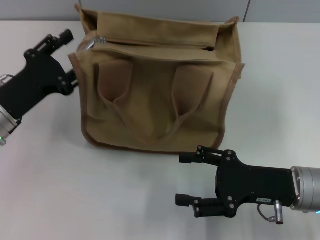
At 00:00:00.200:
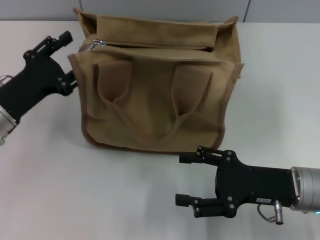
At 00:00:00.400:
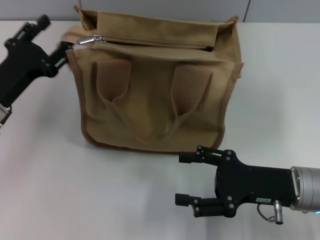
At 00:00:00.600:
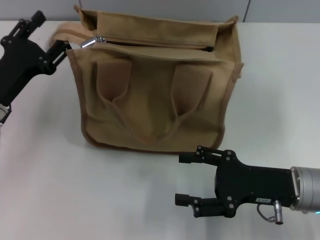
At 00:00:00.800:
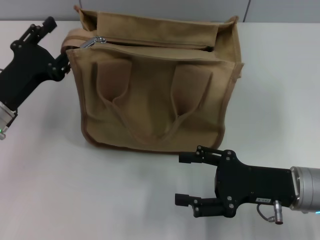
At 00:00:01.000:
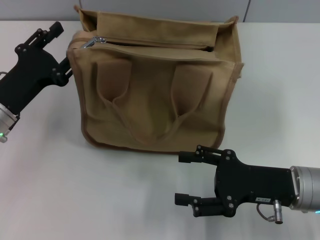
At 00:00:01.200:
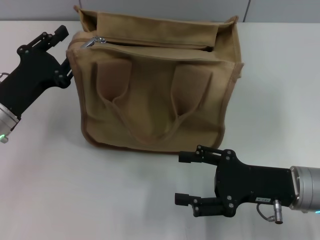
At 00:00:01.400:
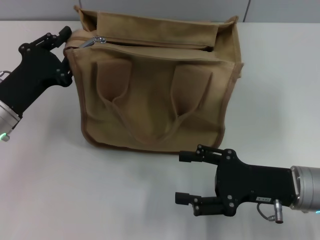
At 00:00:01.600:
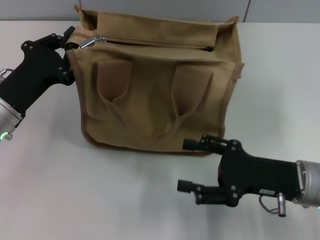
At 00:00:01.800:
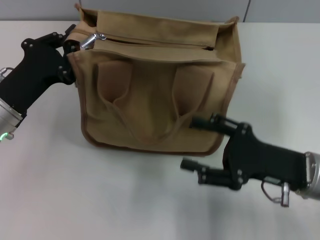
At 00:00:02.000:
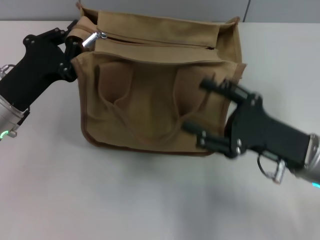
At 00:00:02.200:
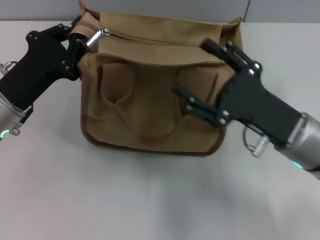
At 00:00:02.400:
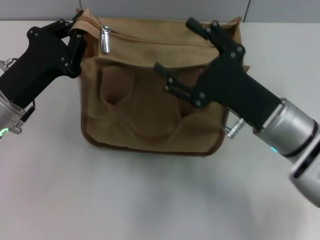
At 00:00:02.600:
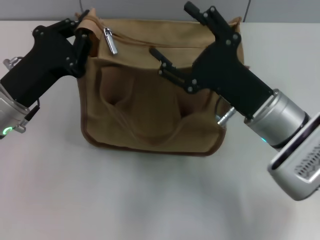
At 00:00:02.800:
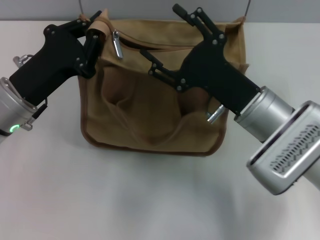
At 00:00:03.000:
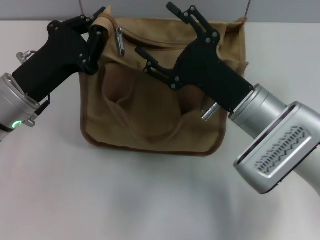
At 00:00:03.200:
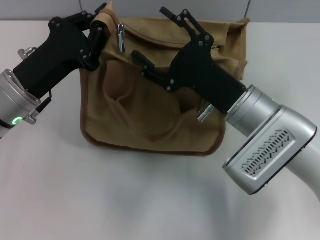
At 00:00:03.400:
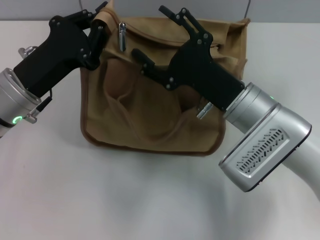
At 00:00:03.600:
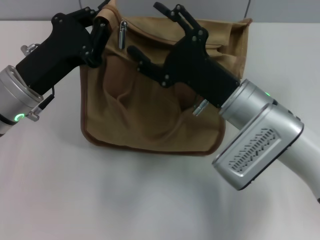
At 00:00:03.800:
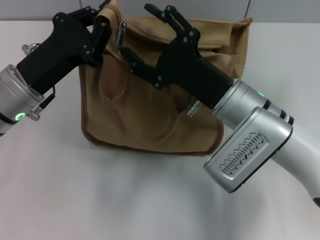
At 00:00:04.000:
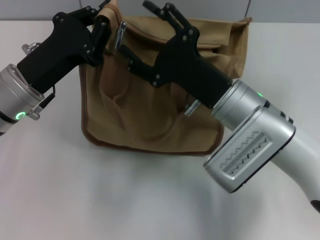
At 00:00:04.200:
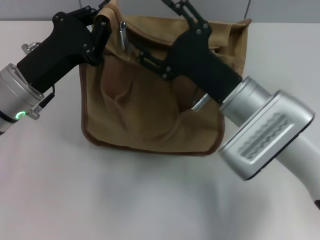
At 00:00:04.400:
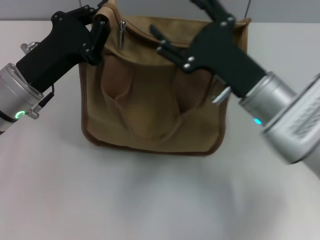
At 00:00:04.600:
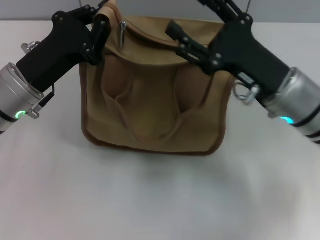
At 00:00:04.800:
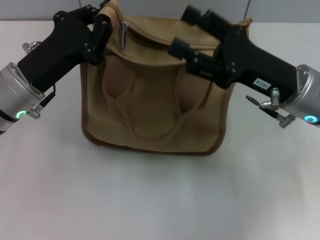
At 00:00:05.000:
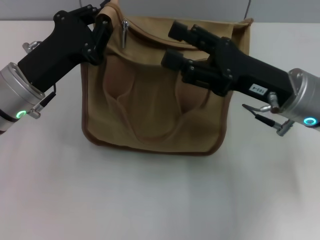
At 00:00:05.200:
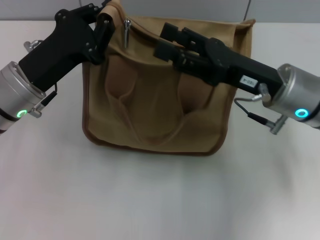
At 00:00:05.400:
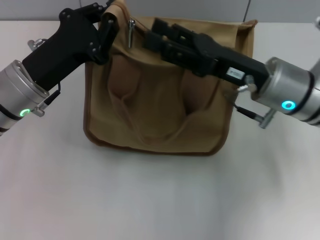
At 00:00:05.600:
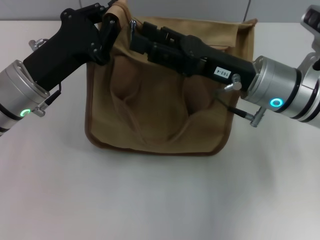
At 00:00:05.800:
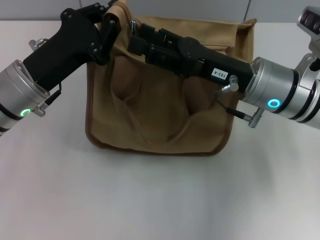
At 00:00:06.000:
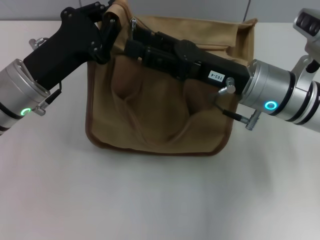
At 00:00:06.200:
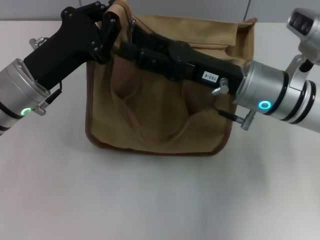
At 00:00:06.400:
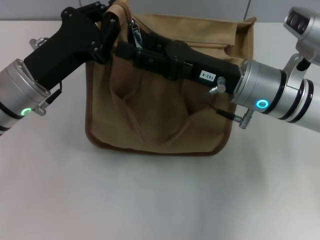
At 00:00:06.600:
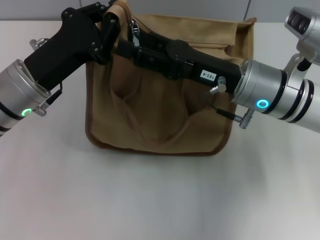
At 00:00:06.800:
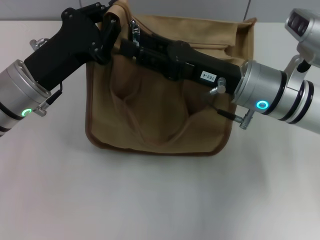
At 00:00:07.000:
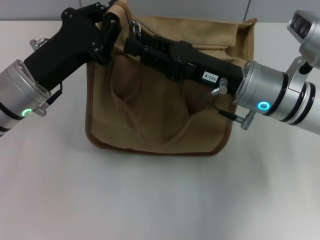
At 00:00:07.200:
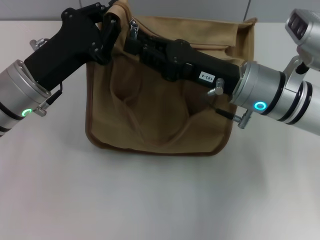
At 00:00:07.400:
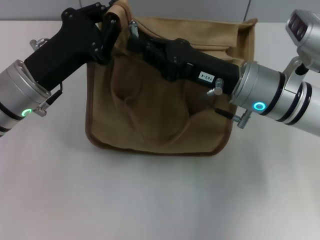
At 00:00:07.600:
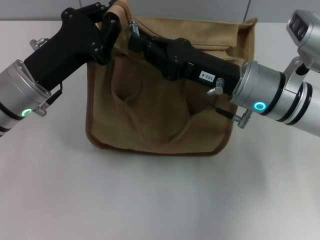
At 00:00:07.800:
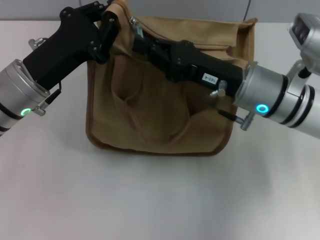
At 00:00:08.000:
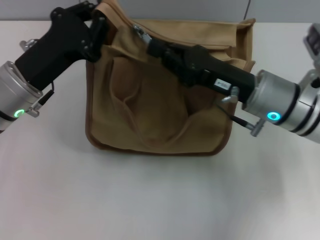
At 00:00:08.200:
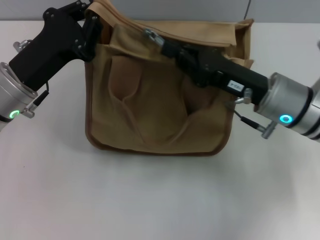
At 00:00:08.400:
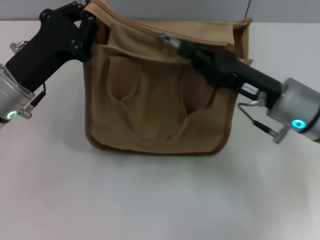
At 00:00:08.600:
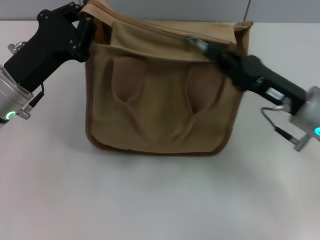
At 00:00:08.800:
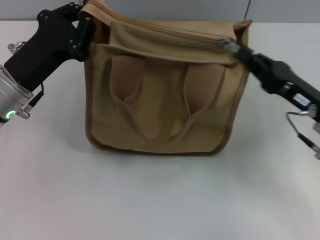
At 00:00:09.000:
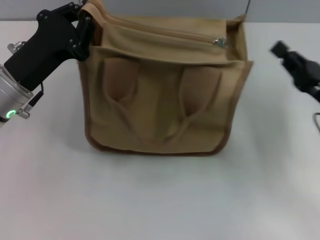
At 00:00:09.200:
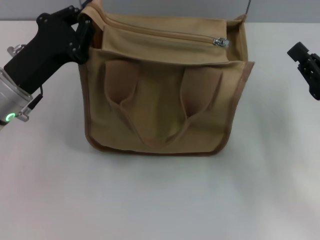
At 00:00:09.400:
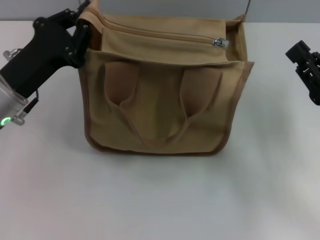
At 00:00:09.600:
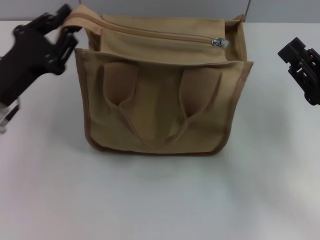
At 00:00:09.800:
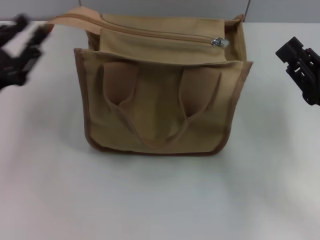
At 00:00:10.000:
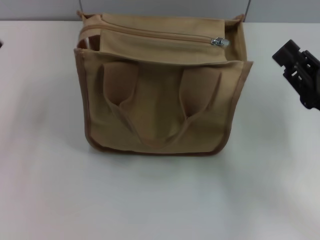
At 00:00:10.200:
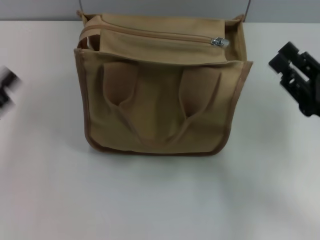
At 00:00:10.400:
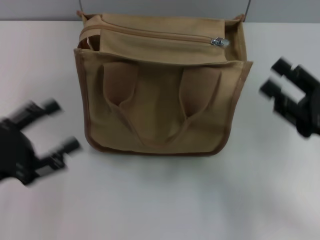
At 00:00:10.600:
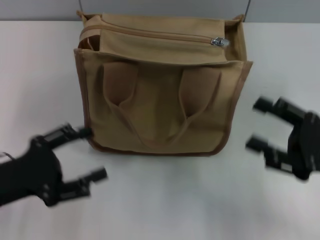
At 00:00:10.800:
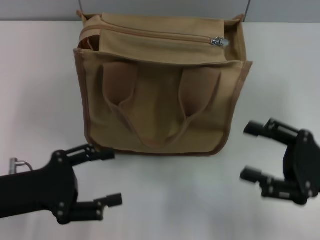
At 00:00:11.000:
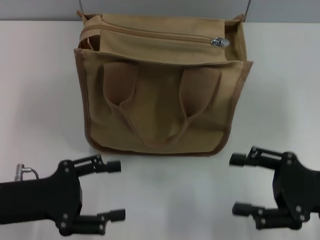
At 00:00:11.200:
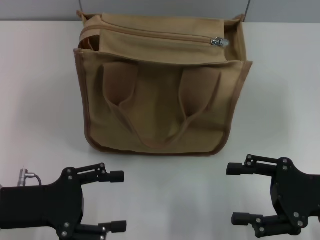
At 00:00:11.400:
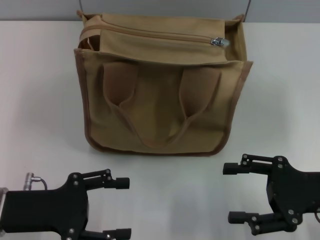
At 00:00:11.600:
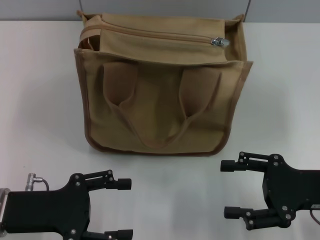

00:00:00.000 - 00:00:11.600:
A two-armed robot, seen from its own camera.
Step, 00:00:00.000 - 00:00:08.800: Pull up the zipper with your right hand.
Step, 00:00:09.000 - 00:00:09.800: Grab the zipper with your left hand.
00:00:00.000 - 00:00:01.400: The grippers move only a little.
00:00:01.400 - 00:00:02.800: The left gripper closes its fingers, while the right gripper is displaced to the left and forward by about 10 cm.
00:00:05.800 - 00:00:07.200: The right gripper closes.
00:00:07.200 - 00:00:08.800: The right gripper travels to the right by approximately 10 cm, and closes.
00:00:08.800 - 00:00:10.200: The left gripper shifts about 15 cm backward and to the left, and opens its fingers, while the right gripper opens.
00:00:10.200 - 00:00:11.600: The left gripper is displaced to the right by about 5 cm, while the right gripper opens up.

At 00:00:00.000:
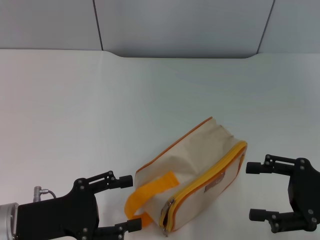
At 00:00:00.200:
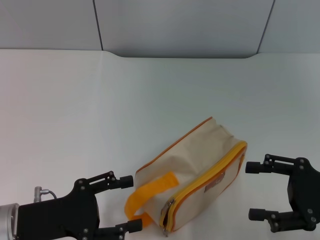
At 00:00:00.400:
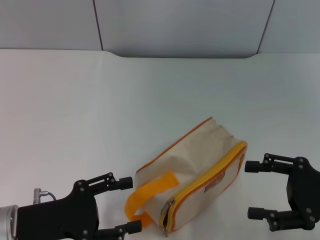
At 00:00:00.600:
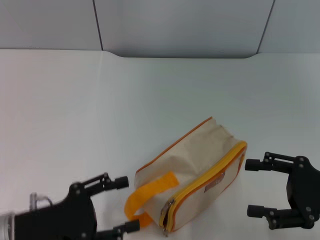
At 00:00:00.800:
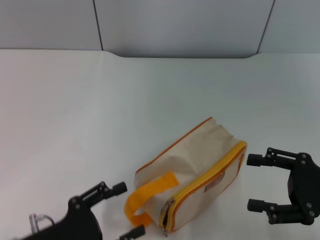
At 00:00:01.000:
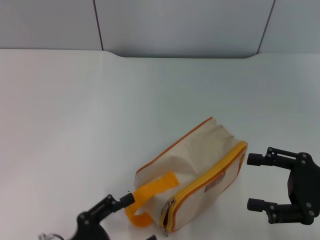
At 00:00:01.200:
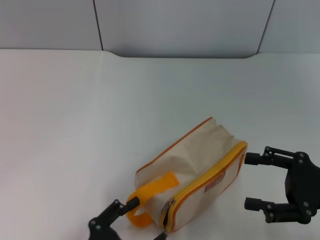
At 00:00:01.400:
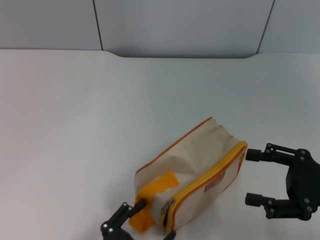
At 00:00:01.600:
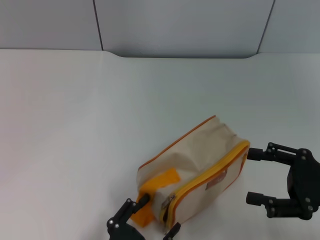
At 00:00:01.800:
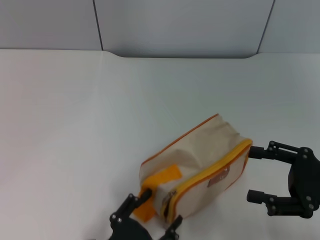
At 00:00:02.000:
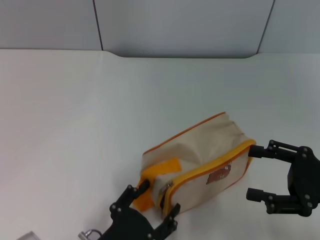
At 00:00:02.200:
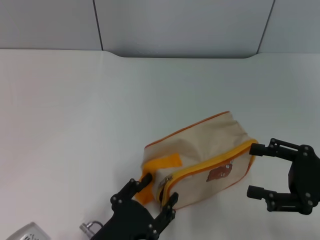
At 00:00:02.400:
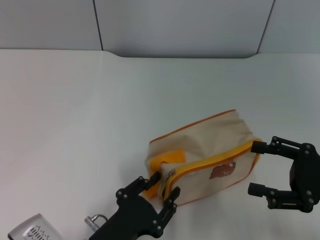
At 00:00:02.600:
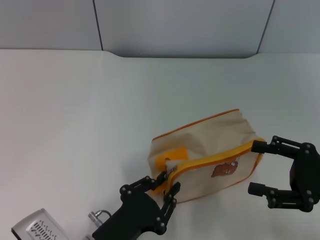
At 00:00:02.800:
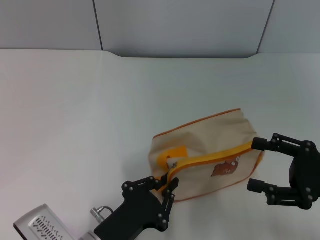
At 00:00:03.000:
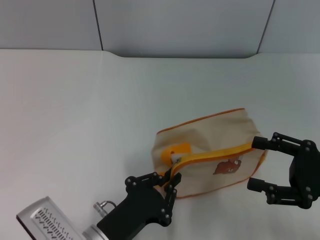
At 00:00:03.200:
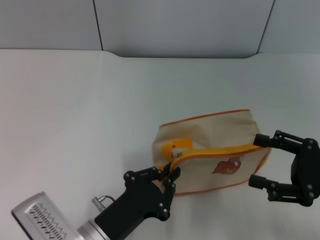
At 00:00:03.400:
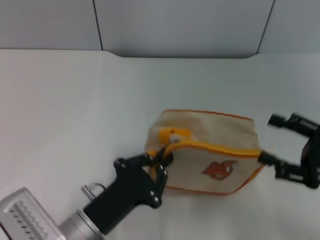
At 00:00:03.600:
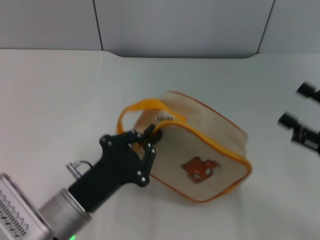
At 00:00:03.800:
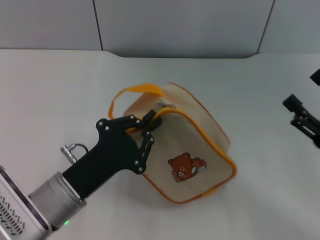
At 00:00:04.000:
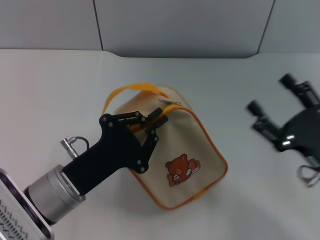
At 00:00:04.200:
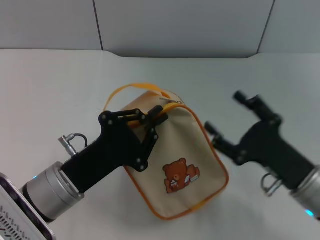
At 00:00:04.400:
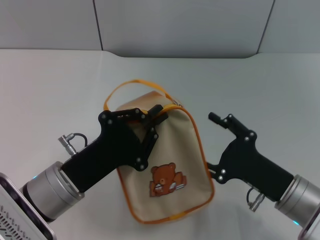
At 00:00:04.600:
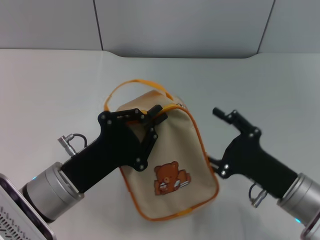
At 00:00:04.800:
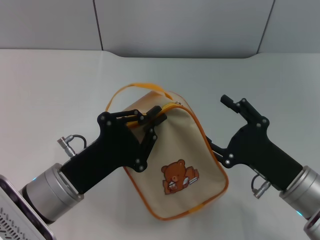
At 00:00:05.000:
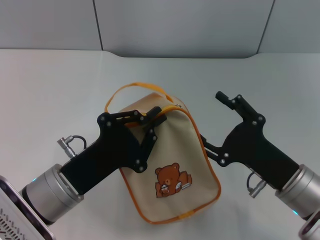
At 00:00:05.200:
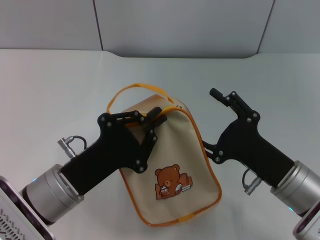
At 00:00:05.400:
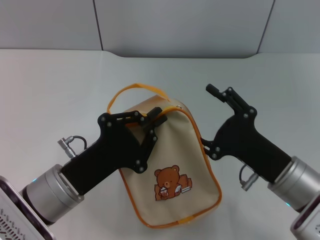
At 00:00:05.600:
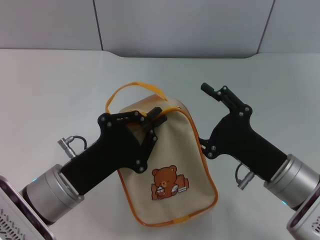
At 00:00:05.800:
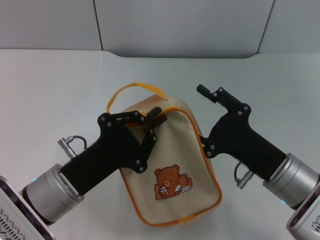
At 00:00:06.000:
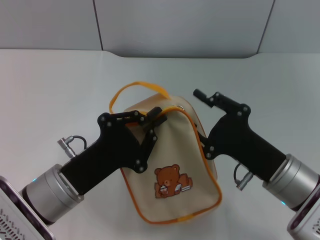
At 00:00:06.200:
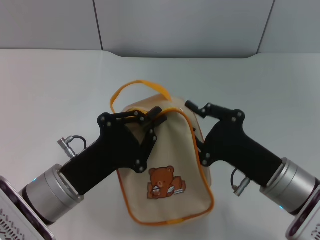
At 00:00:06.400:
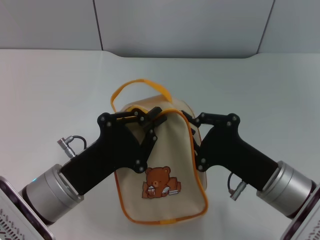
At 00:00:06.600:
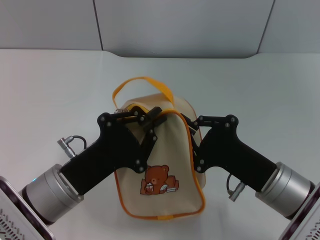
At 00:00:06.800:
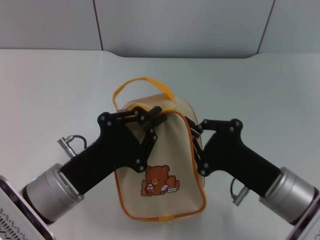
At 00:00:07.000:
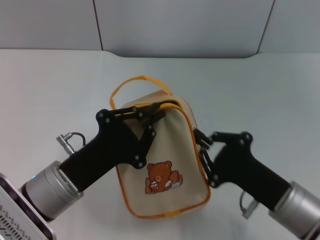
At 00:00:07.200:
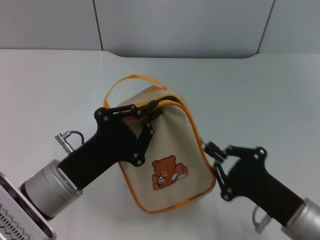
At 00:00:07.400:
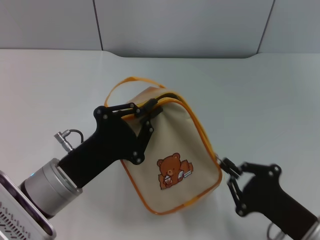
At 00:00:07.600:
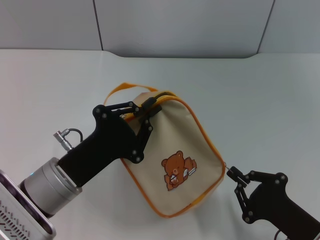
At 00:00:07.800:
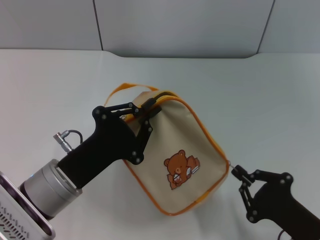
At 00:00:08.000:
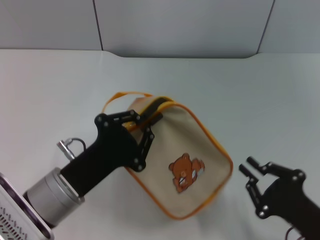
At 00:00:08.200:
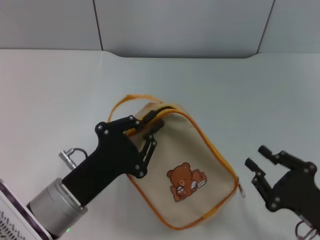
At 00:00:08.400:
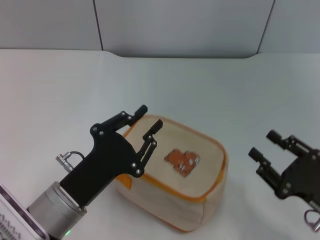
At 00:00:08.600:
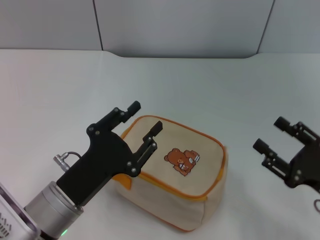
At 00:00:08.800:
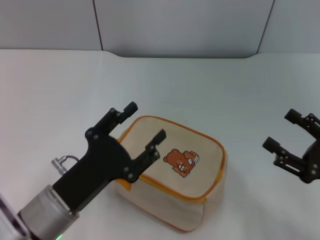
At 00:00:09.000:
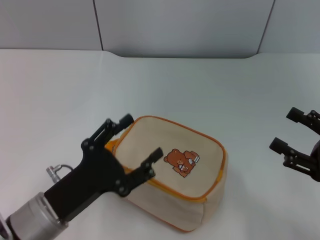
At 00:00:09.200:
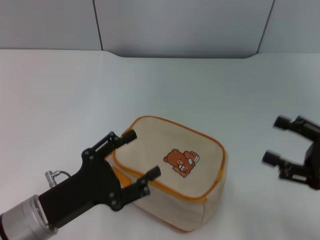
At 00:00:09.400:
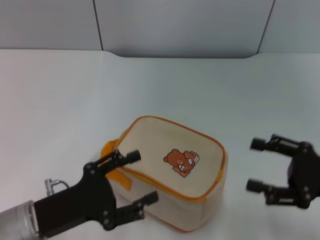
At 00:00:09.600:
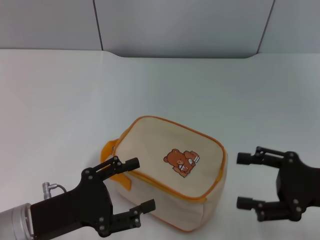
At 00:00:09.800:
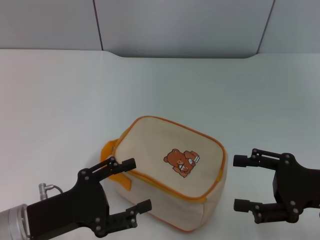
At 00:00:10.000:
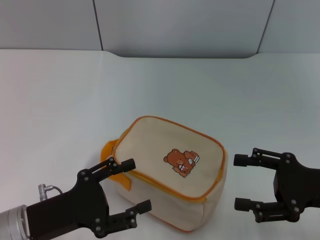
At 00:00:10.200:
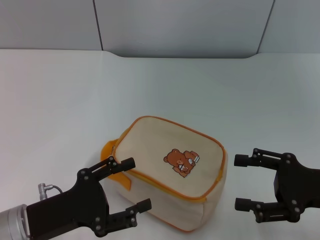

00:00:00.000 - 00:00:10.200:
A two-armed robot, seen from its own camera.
Step, 00:00:00.000 - 00:00:03.800: Pick up the bag with left gripper.
Step, 00:00:04.000 - 00:00:08.000: Unzip the zipper of bag with right gripper.
Step, 00:00:08.400 - 00:00:08.800: Place the bag on the table with left gripper.
00:00:00.000 - 00:00:01.400: The left gripper heads backward, to the right and downward, covering approximately 15 cm.
00:00:01.400 - 00:00:03.000: The left gripper is displaced forward by about 5 cm, and closes up.
00:00:03.000 - 00:00:04.400: The left gripper moves forward and upward, about 10 cm; the right gripper travels to the left and downward by some 10 cm.
00:00:04.400 - 00:00:05.800: The grippers make only small movements.
00:00:05.800 - 00:00:07.200: The right gripper goes some 5 cm backward, and closes up.
00:00:07.200 - 00:00:08.800: The right gripper moves to the right, about 10 cm, and opens up. The left gripper opens up.
00:00:08.800 - 00:00:10.200: The left gripper travels to the left by roughly 5 cm, and opens up.
